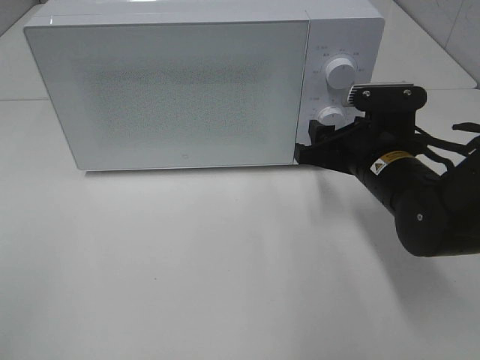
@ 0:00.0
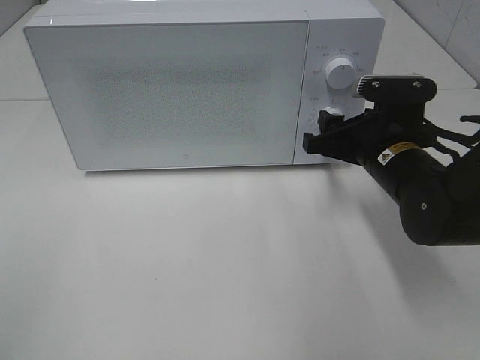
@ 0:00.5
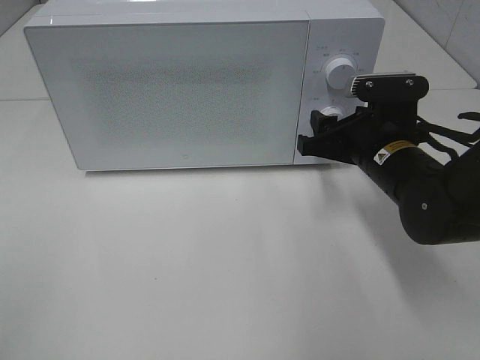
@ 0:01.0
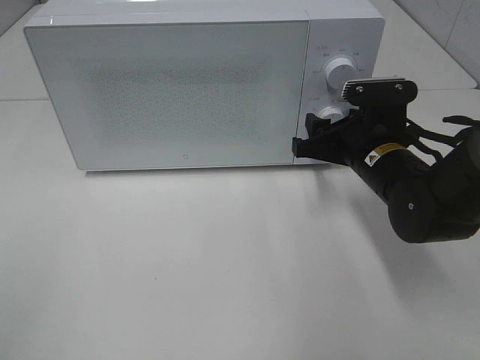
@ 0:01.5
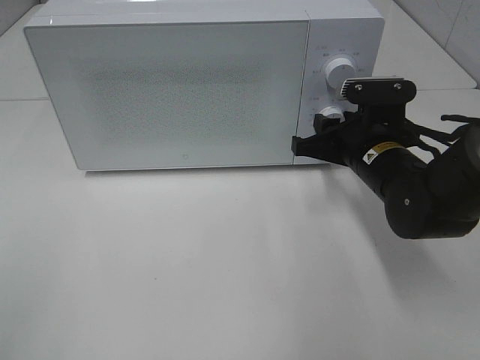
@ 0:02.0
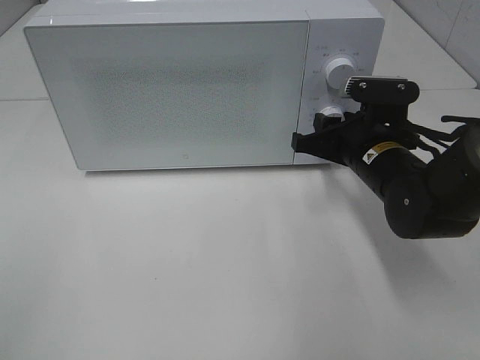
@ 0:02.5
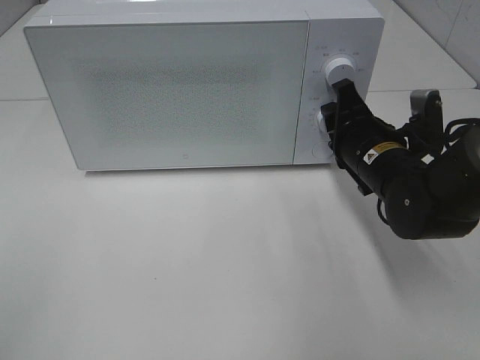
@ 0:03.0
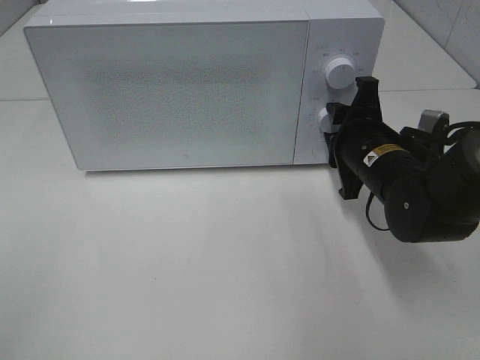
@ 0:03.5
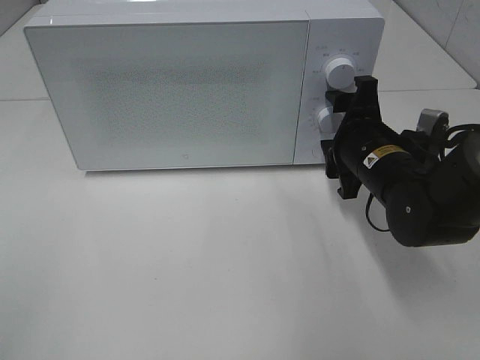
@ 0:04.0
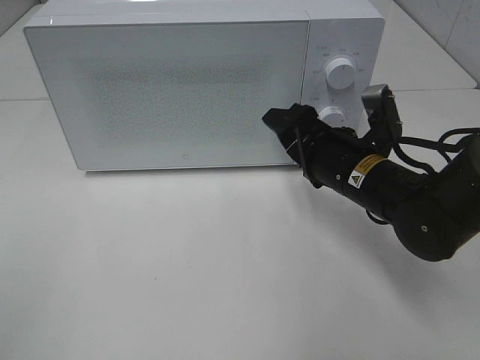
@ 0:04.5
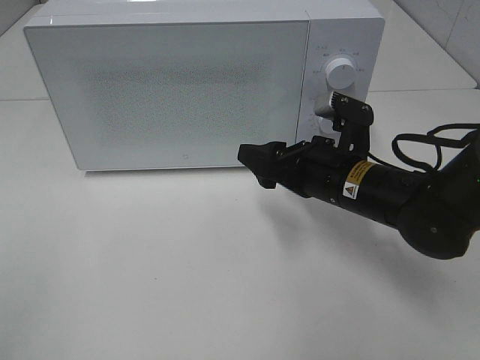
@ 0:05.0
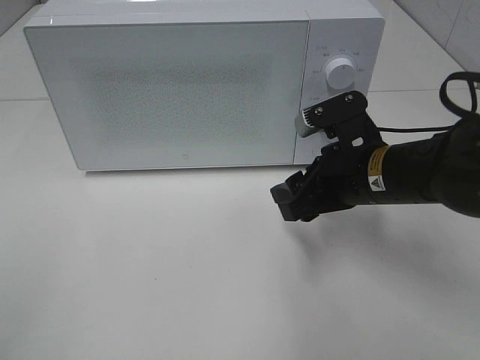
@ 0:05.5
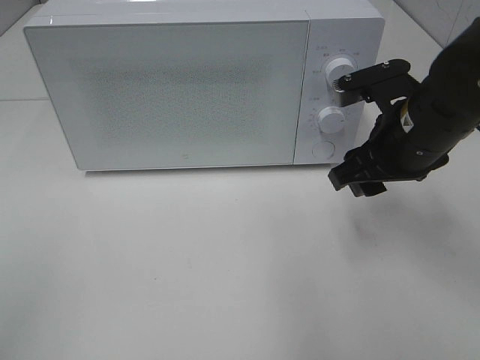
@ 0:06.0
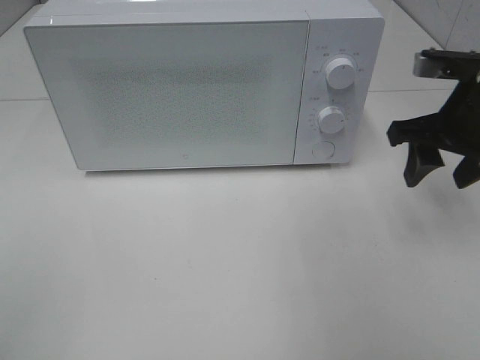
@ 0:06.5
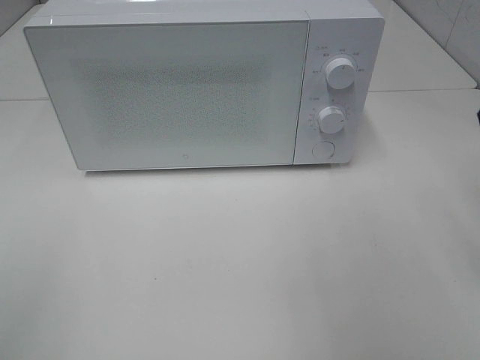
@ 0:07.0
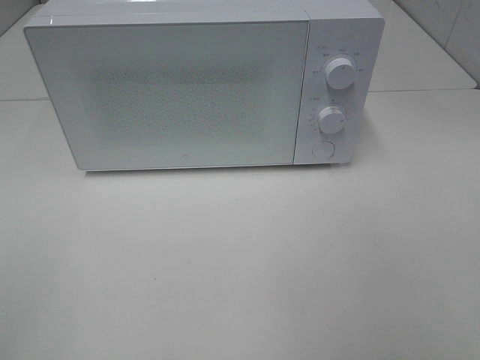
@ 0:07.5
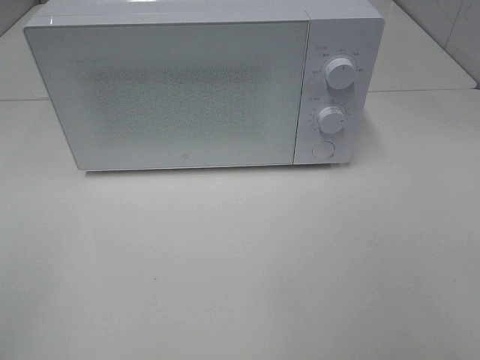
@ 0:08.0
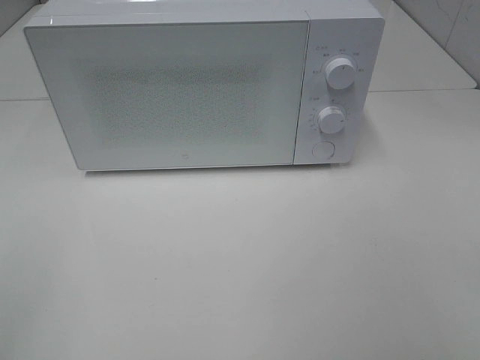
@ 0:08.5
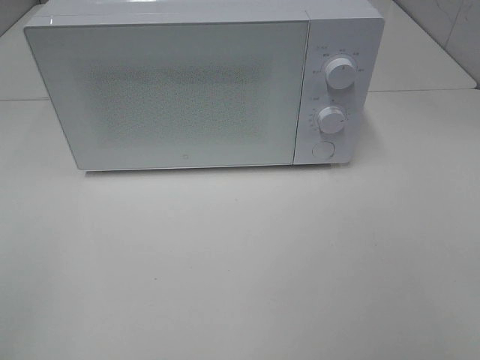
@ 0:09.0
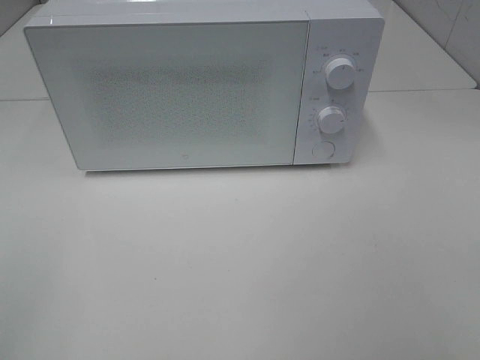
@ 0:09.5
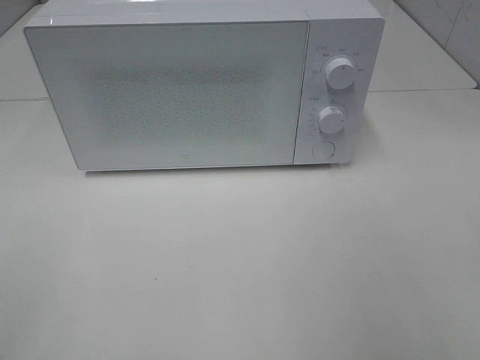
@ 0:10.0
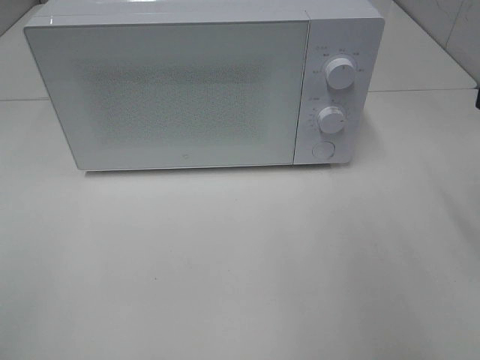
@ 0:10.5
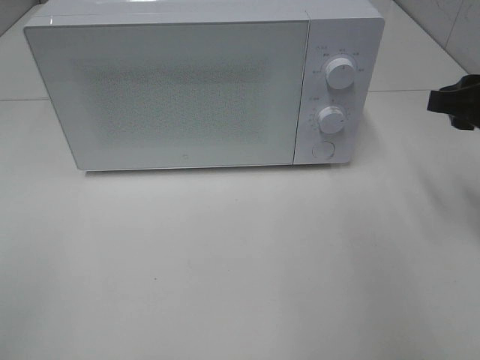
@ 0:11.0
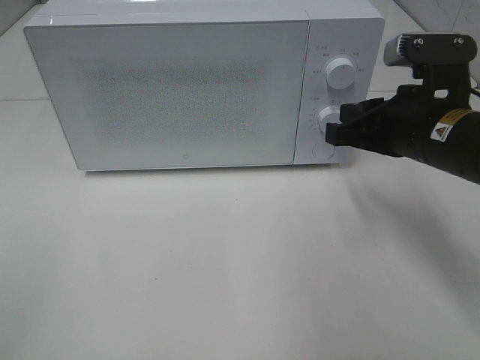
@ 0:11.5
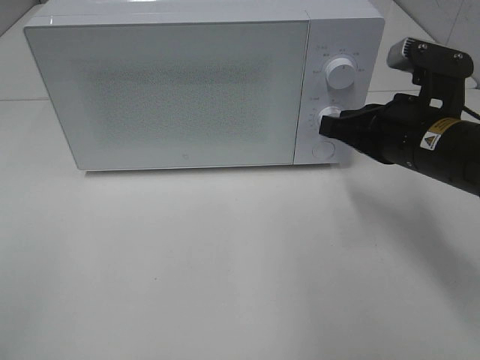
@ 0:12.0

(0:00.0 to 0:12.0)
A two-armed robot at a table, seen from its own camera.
Task of the whole recording: Heat the burger.
Step, 0:00.0 - 0:03.5: Right hand: twist timer button.
0:00.0 - 0:02.0: The grippers stay close to where they were, moving slightly.
0:02.0 - 0:04.0: The right gripper opens its fingers.
0:04.0 - 0:06.0: The right gripper travels upward by approximately 5 cm.
0:06.0 - 0:08.0: The right gripper goes some 30 cm backward and to the right.
0:10.0 - 0:12.0: The right gripper moves forward, downward and to the left, some 25 cm, and closes up.

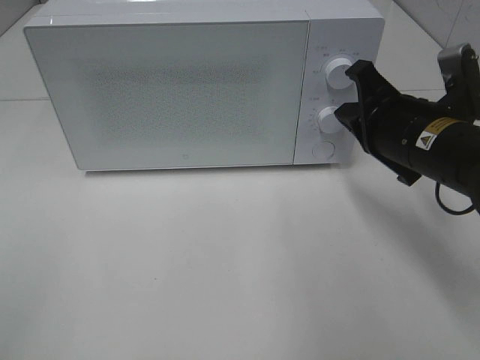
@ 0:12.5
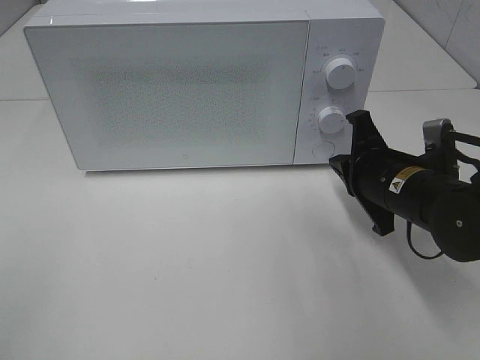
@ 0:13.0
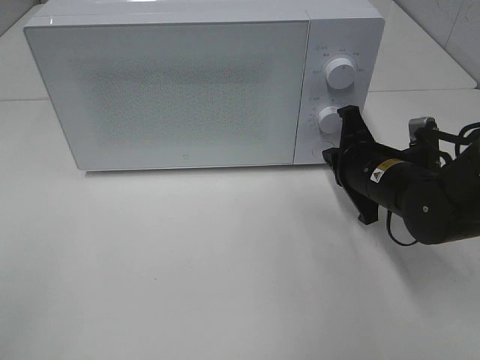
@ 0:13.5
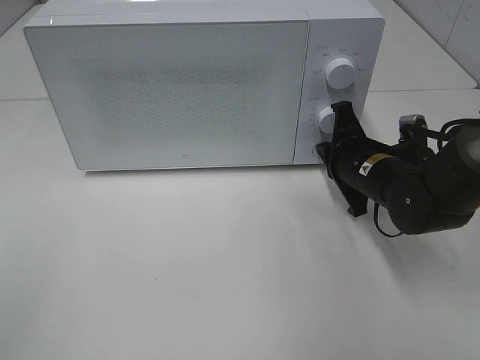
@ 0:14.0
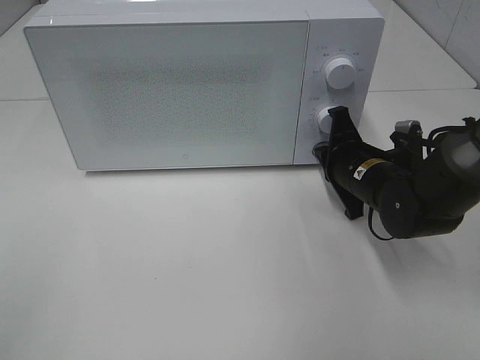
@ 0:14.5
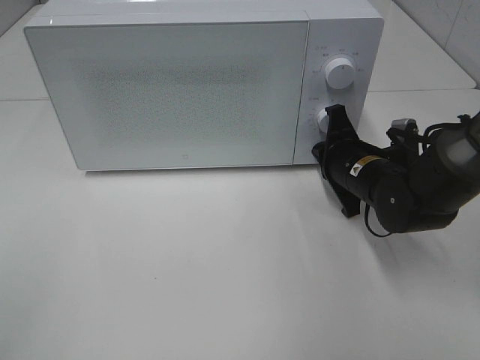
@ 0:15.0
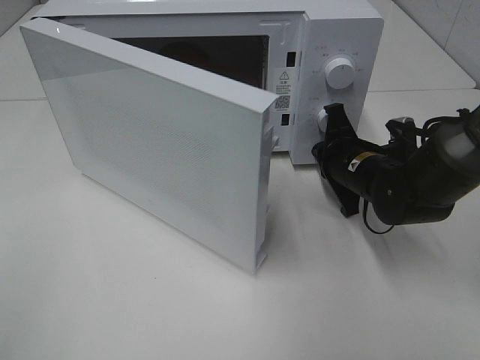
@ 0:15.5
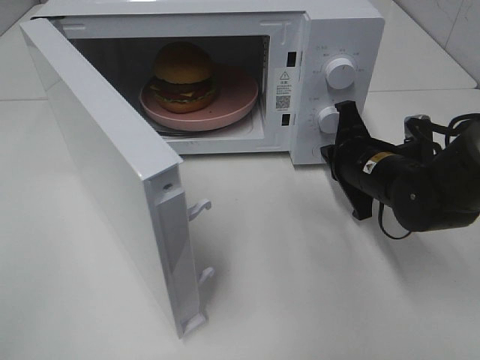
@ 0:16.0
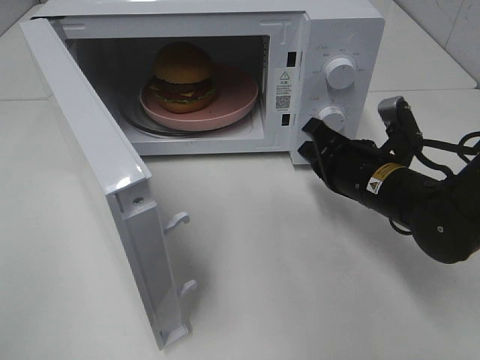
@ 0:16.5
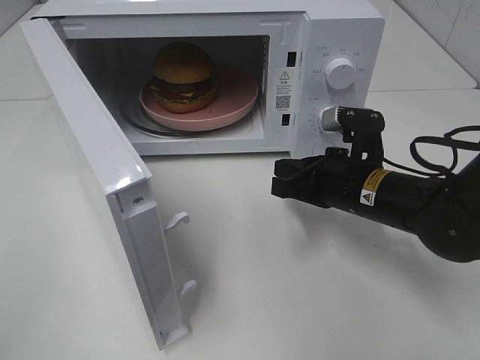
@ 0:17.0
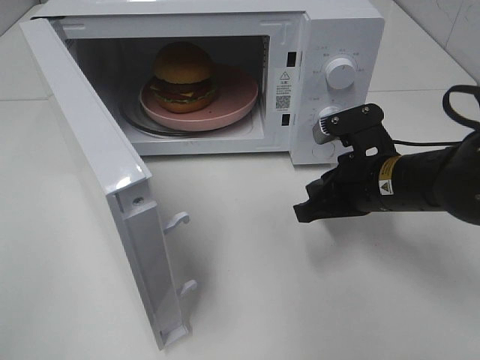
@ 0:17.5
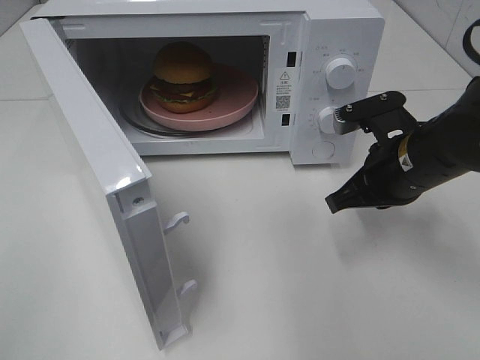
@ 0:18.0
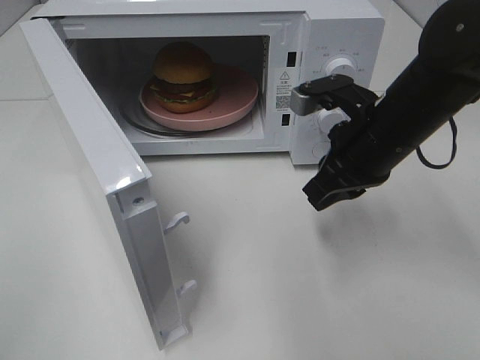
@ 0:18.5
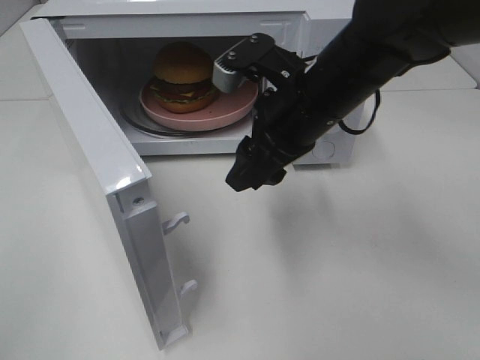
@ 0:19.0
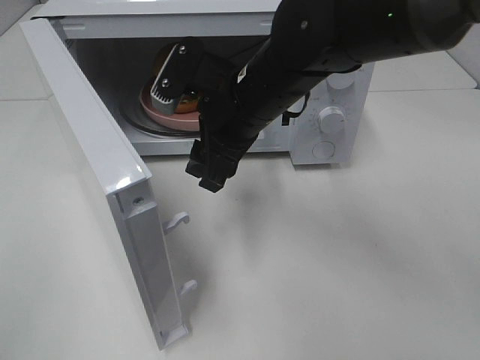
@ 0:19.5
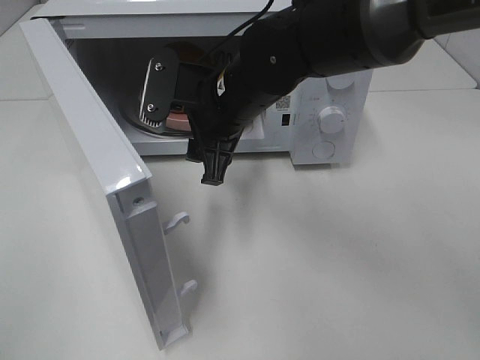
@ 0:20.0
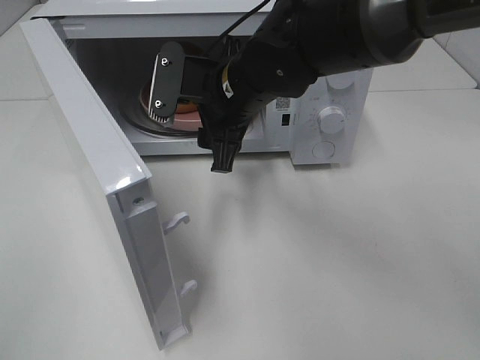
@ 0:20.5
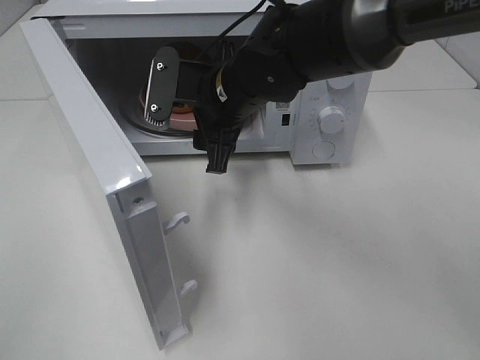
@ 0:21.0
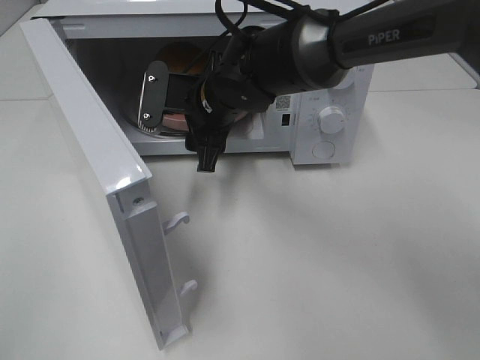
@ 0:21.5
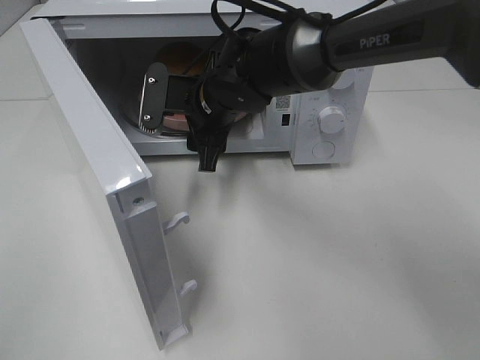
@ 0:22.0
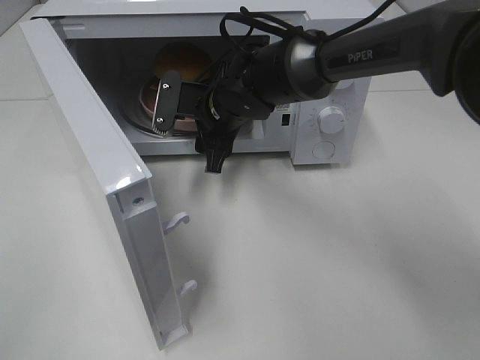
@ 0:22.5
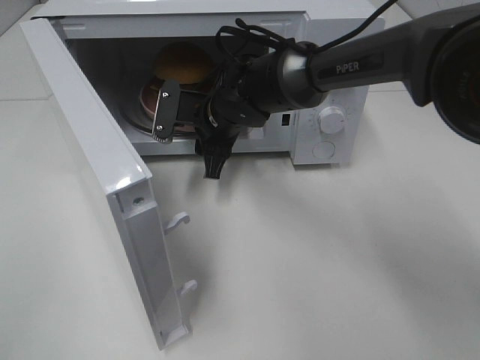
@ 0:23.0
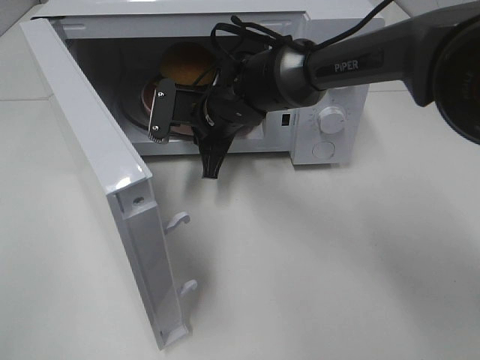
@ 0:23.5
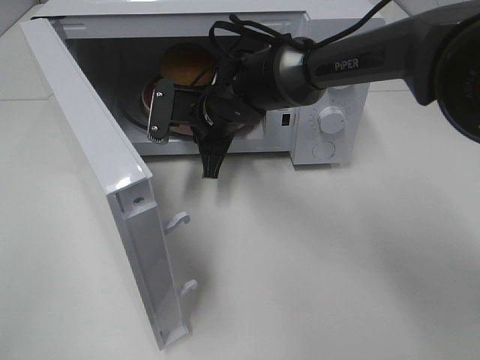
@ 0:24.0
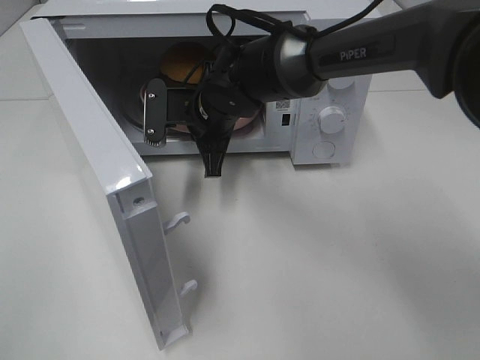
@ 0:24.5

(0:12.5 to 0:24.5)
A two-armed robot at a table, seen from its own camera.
Task of the whole recording: Heat the burger.
Step, 0:12.5 - 0:16.0: Right hand: press the switch.
Step, 0:16.5 - 0:23.5: Right hand: grab the plate with the hamburger.
0:12.5 - 0:14.5: The right gripper moves downward and forward, approximately 10 cm.
0:14.5 - 0:16.5: The right gripper shifts by about 5 cm.
0:16.5 - 0:18.5: The right gripper shifts approximately 10 cm upward.
0:18.5 - 0:20.5: The right gripper heads to the left, covering some 15 cm, and opens up.
0:20.5 - 0:22.5: The right gripper travels downward and forward by roughly 10 cm.
0:22.5 - 0:24.5: The right gripper closes up.

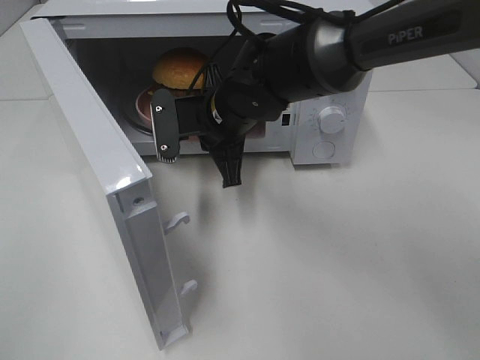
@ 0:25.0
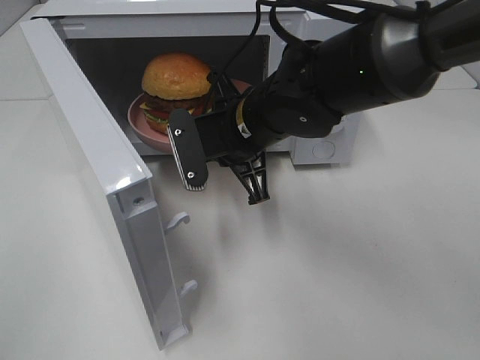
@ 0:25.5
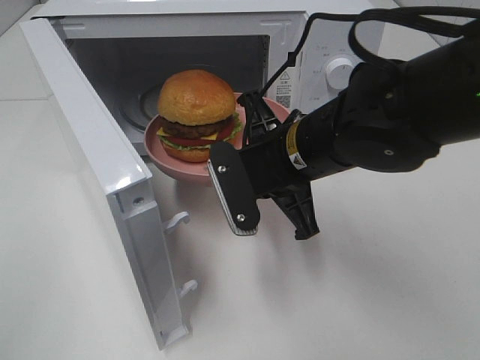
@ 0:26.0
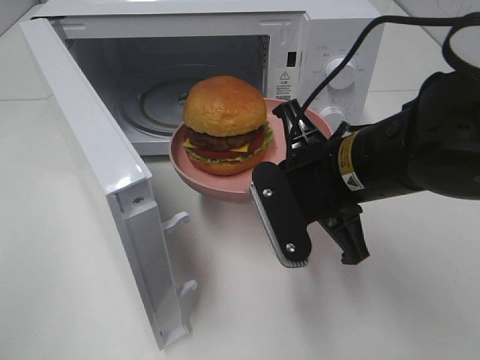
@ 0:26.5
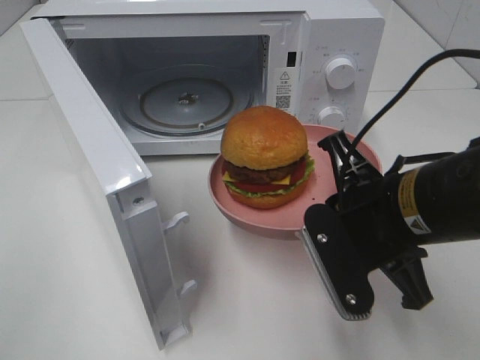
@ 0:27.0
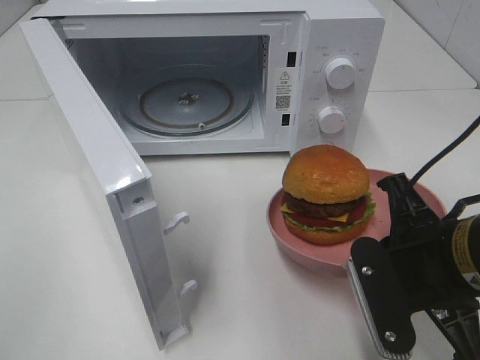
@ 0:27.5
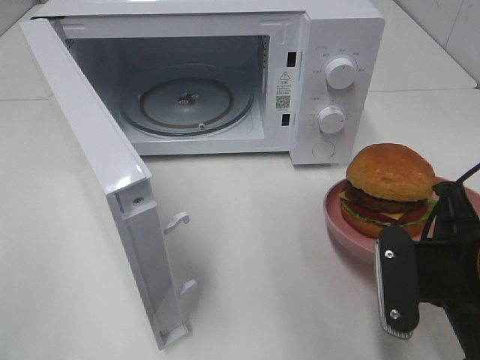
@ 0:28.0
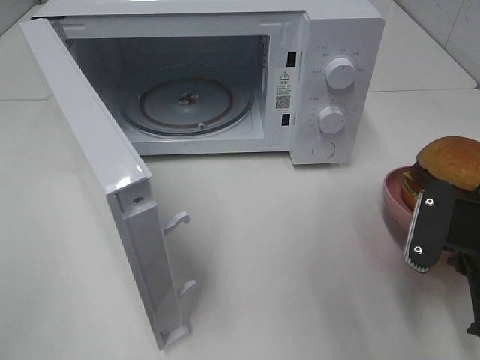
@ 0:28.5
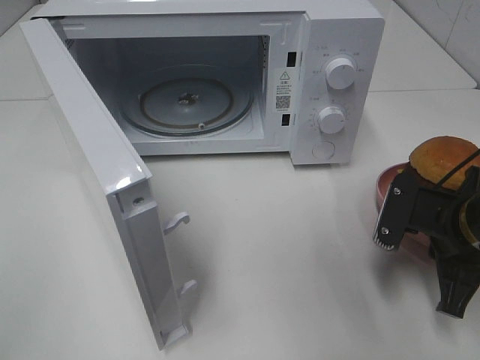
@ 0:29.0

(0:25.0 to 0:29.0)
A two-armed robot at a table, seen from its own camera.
Task of the whole recording: Heat the burger.
0:25.0 - 0:27.0: The right gripper moves backward and to the right, some 20 cm.
0:27.0 - 0:29.0: The right gripper moves to the right and downward, roughly 10 cm.
